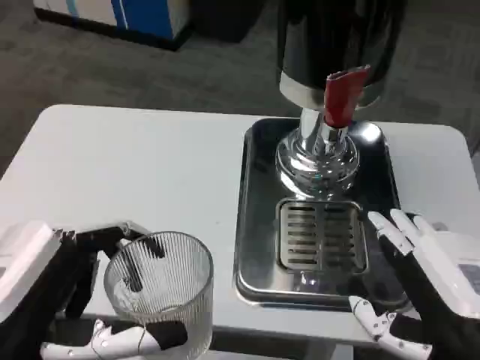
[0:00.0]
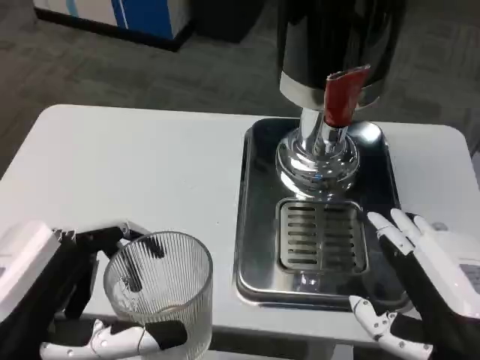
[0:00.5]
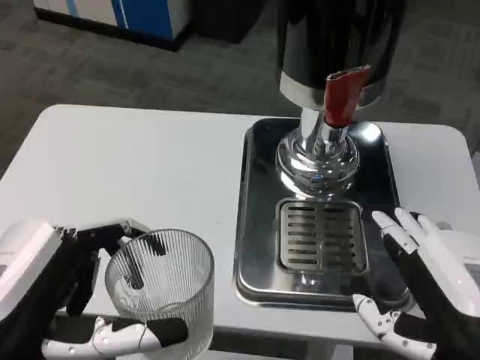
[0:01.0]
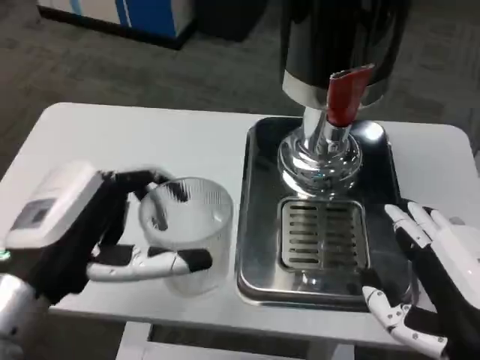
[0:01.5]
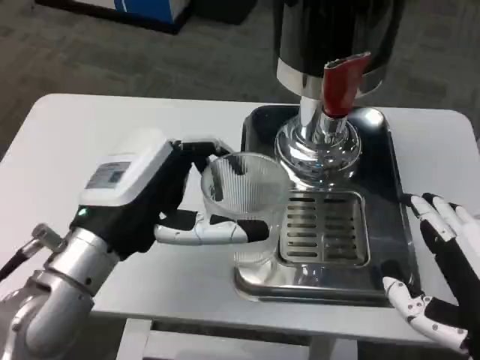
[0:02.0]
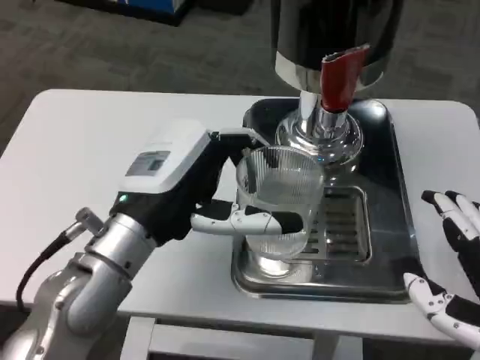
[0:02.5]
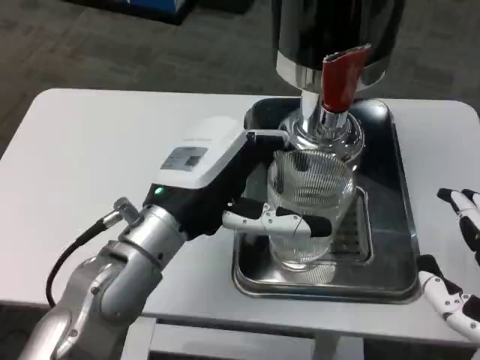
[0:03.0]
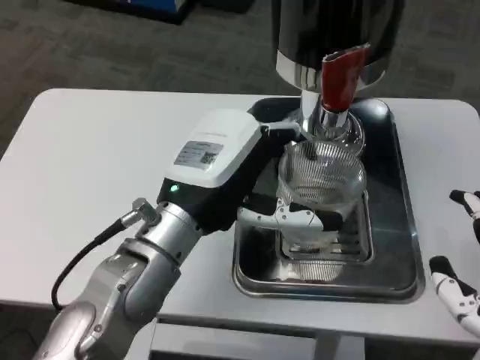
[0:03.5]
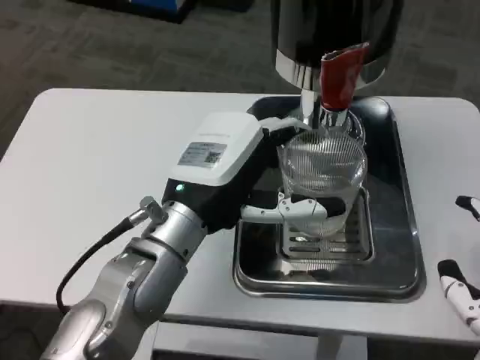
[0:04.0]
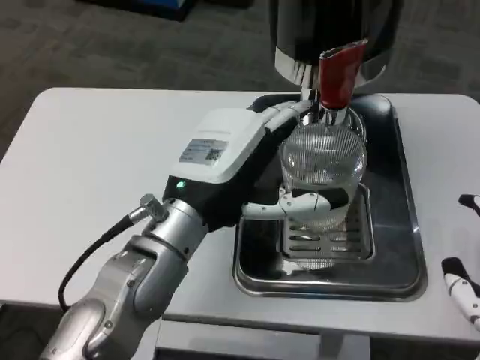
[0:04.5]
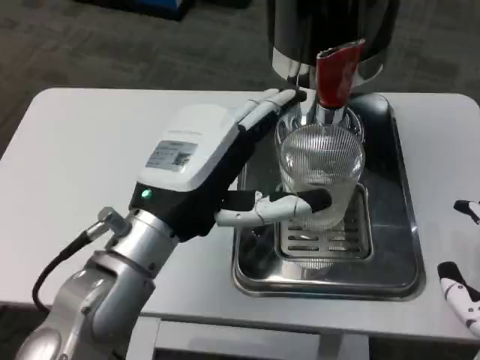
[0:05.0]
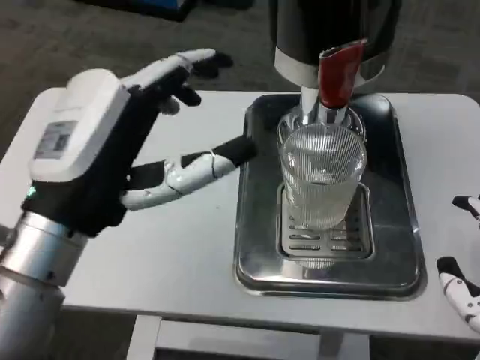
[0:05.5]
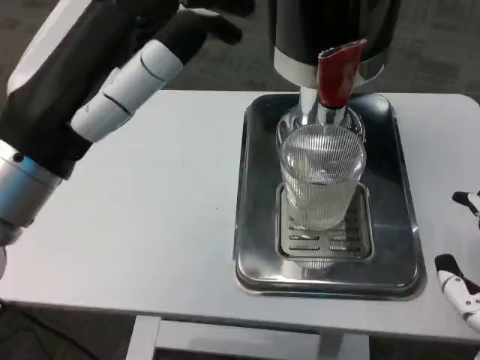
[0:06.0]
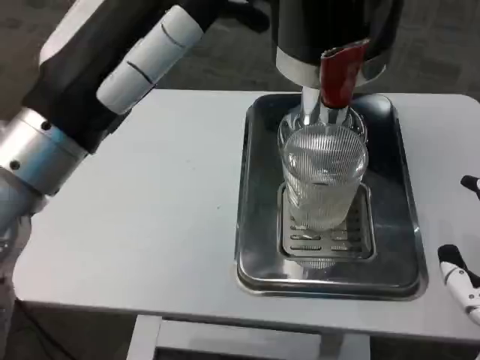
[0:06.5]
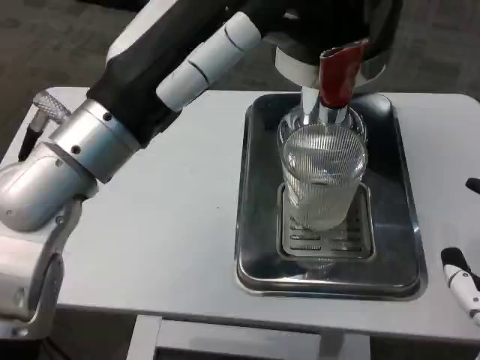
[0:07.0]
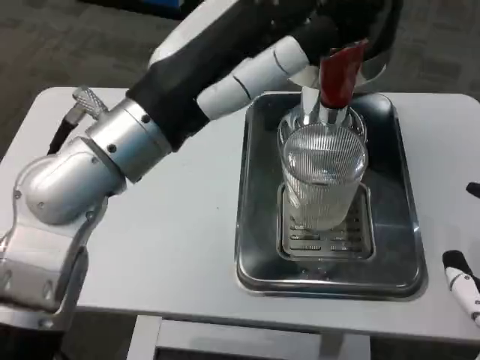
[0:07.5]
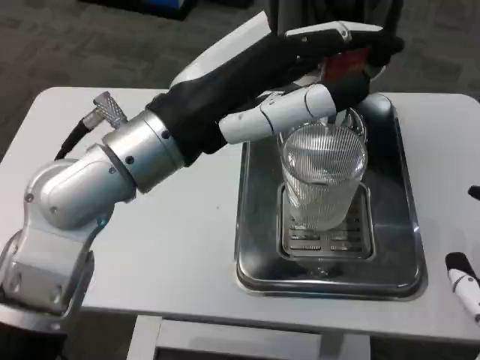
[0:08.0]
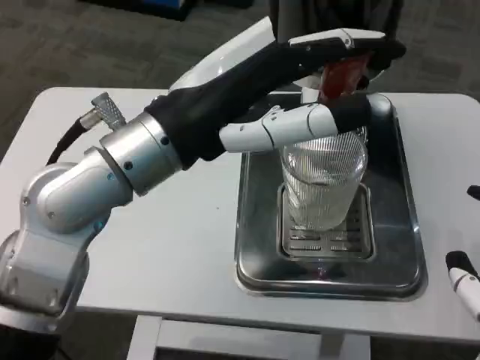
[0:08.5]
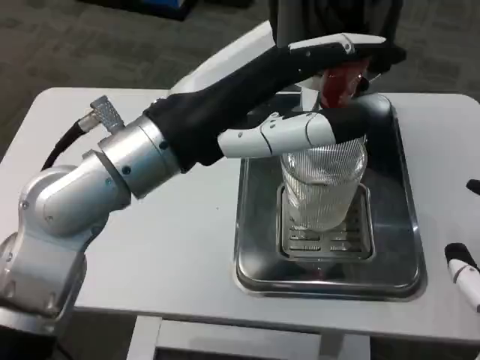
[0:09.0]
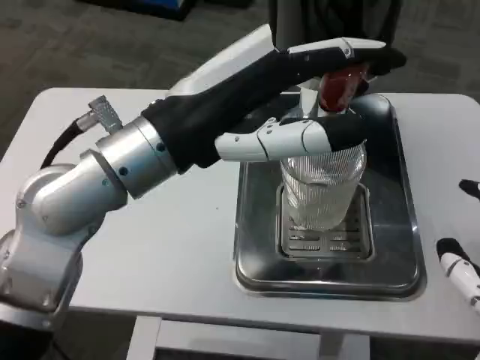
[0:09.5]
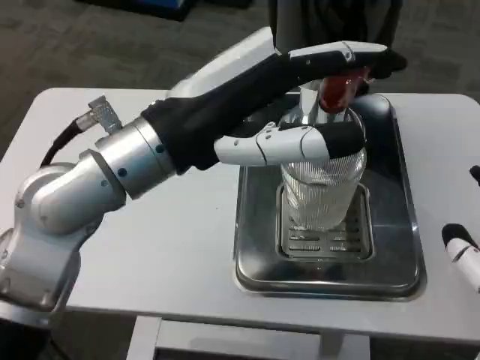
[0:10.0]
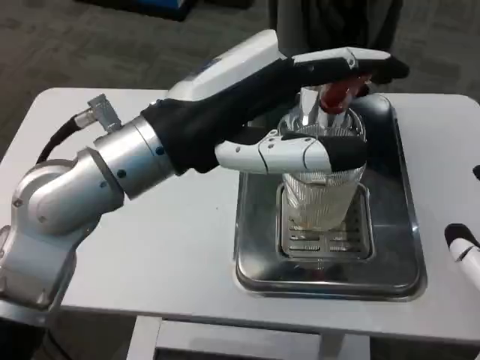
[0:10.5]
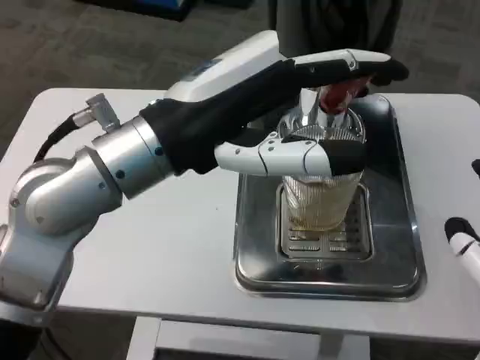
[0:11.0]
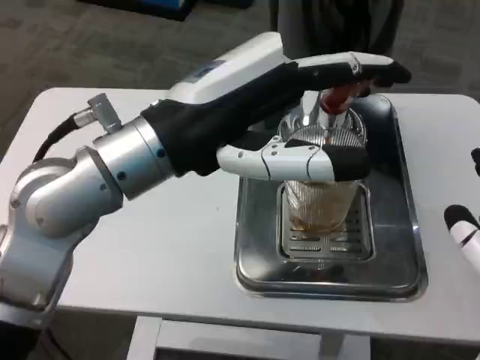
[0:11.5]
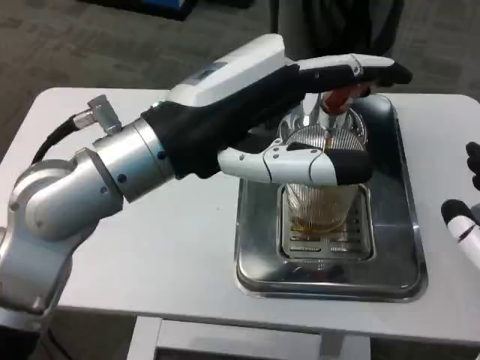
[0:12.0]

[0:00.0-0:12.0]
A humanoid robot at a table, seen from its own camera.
Task of the whole recording: Grasp the cup under the faucet to collect the drink, then remove the cup.
0:00.0 to 0:02.0: The left hand is displaced forward and to the right by some 15 cm.
0:02.0 to 0:04.0: The left hand heads to the right, covering some 5 cm.
0:04.0 to 0:06.0: The left hand heads upward, to the left and backward, covering roughly 15 cm.
0:06.0 to 0:08.0: The left hand is displaced to the right and forward by approximately 10 cm.

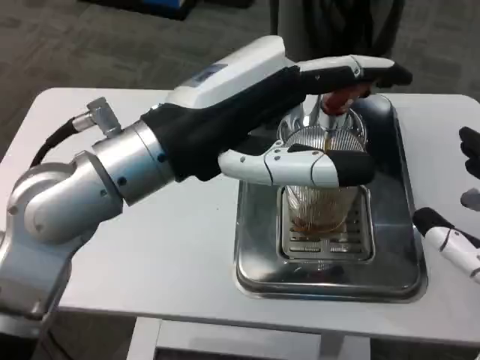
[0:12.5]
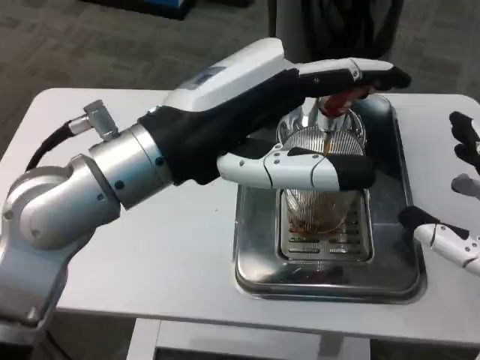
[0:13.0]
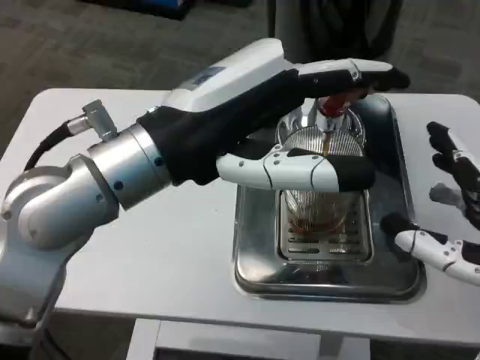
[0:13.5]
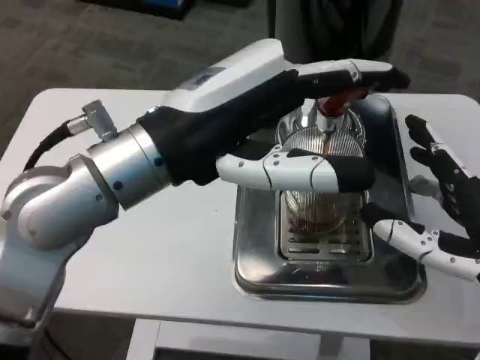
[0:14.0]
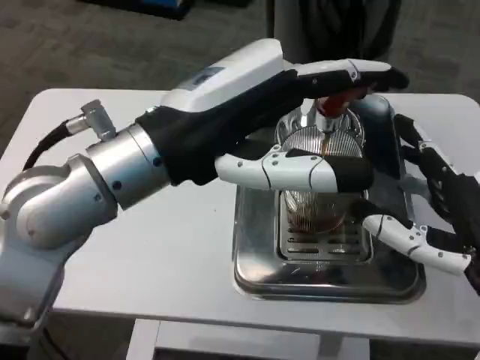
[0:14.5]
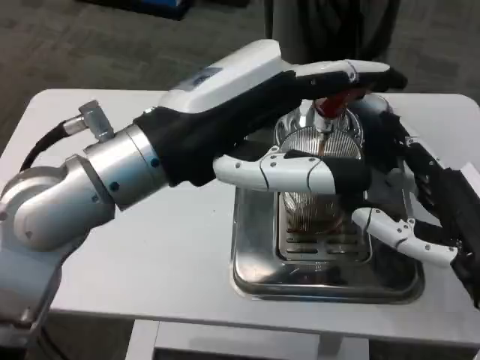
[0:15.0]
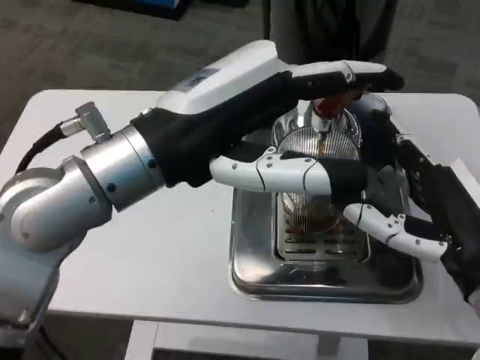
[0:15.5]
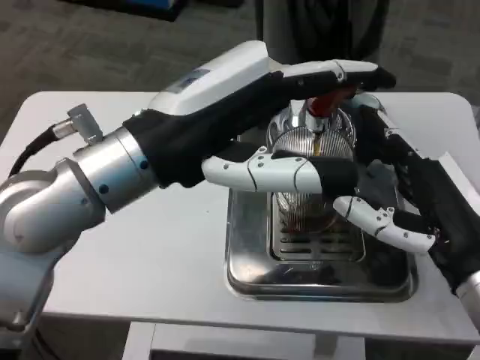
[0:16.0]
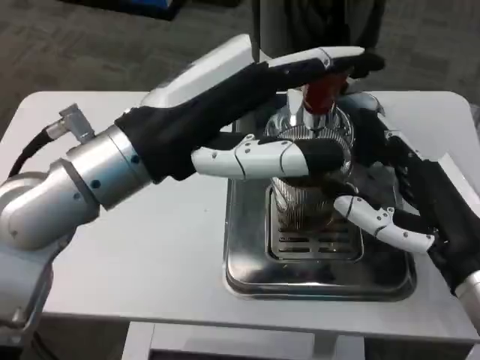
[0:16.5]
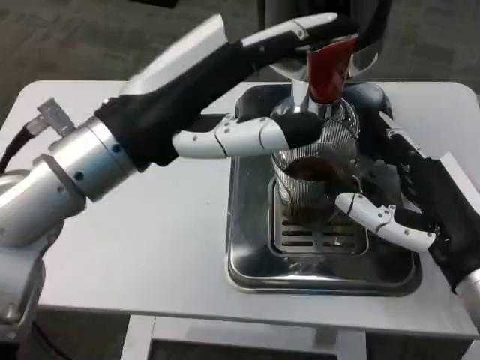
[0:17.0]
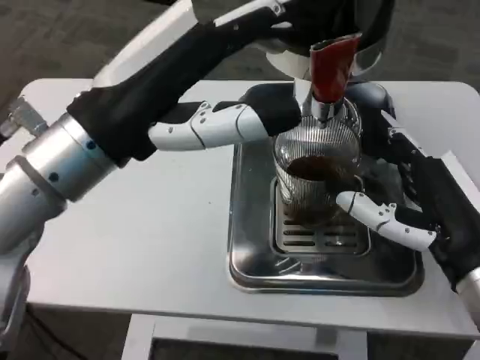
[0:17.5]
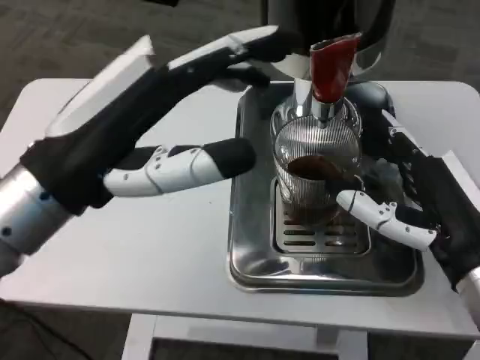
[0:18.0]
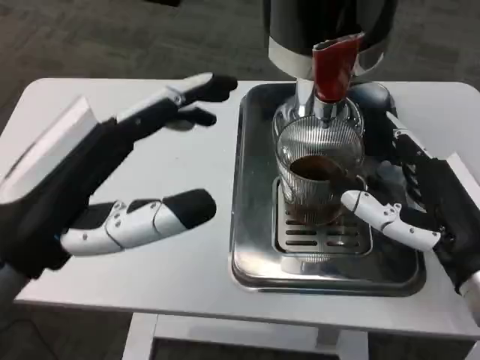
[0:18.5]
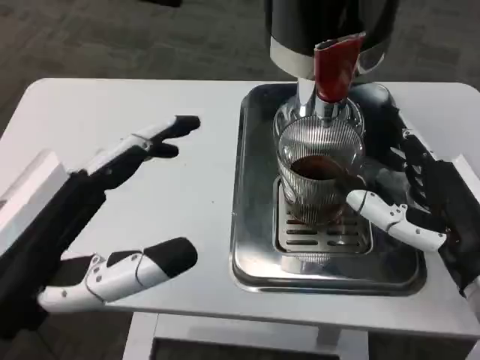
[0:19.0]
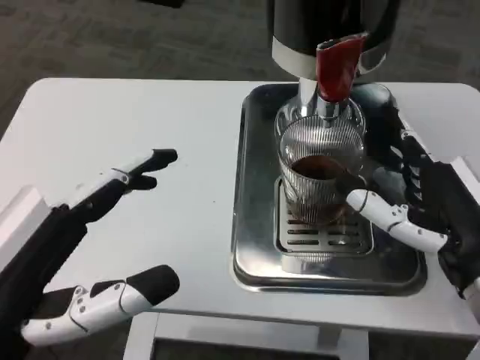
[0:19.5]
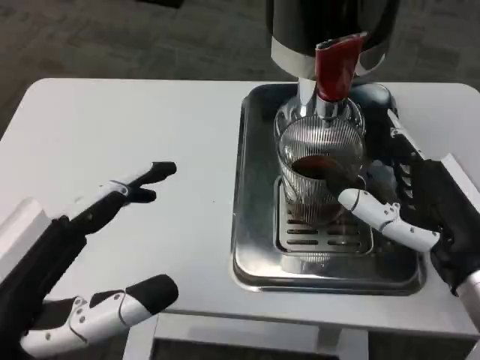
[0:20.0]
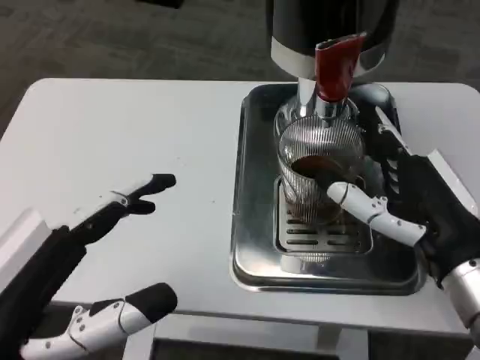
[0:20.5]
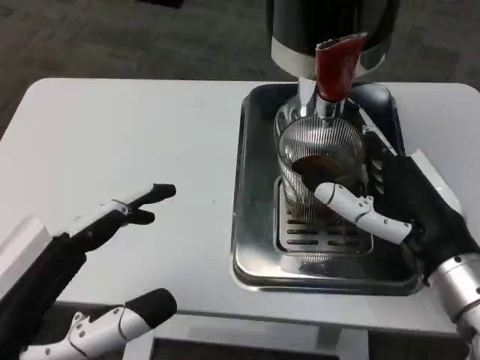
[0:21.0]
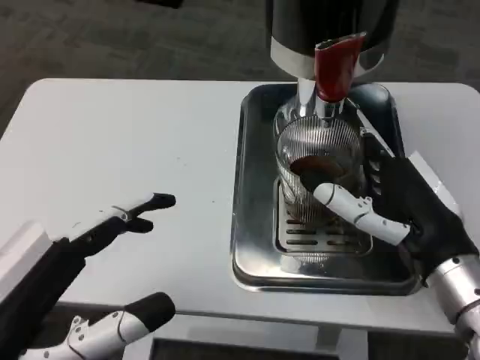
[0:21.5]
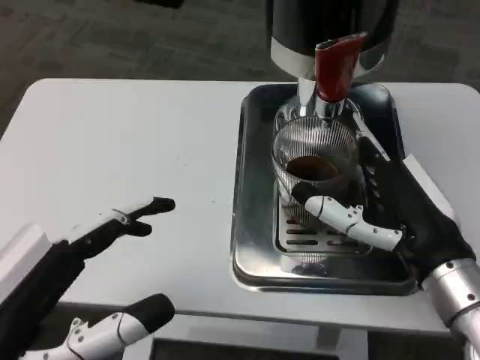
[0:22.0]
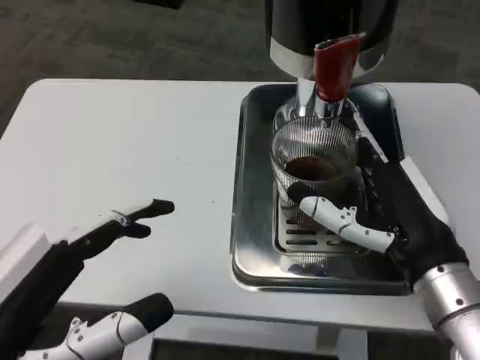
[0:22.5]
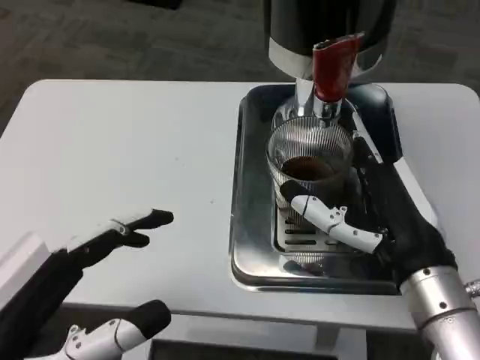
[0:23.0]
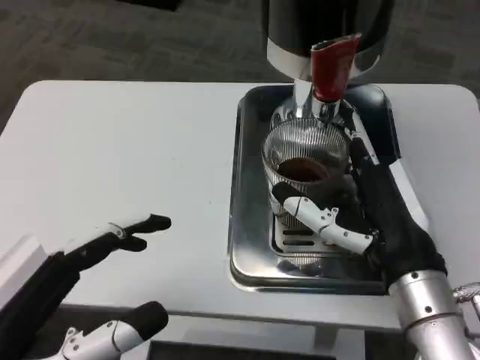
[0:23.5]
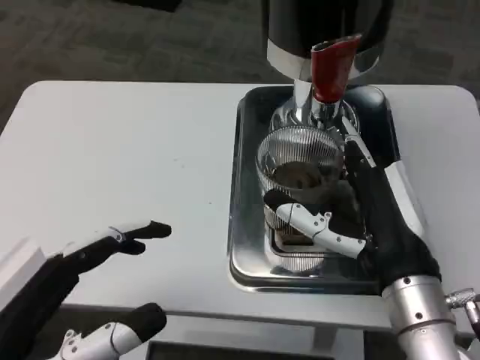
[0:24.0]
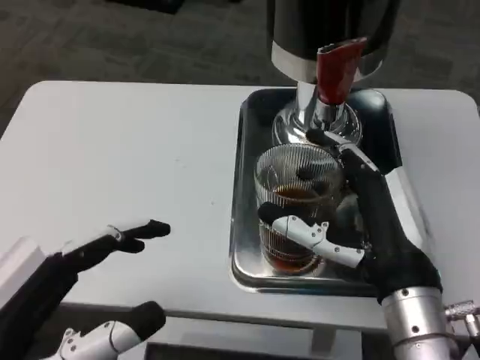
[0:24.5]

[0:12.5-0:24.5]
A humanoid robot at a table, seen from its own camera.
Task of the whole recording: Grasp the cup under the faucet to collect the drink, then remove the cup.
0:16.5 to 0:18.5: The left hand shifts approximately 10 cm backward, to the left and downward.
0:18.5 to 0:20.5: The left hand moves backward, some 5 cm.
0:20.5 to 0:22.5: The hands move only a little.

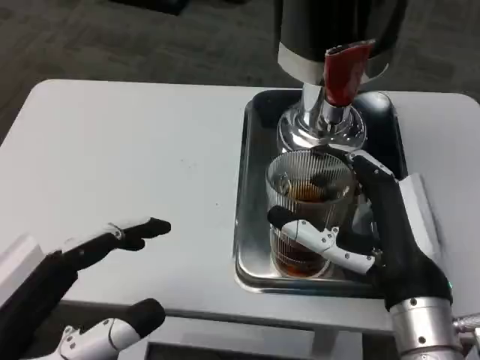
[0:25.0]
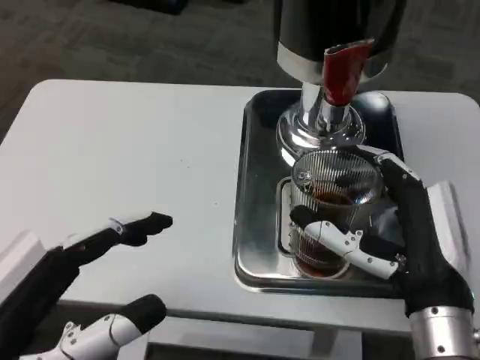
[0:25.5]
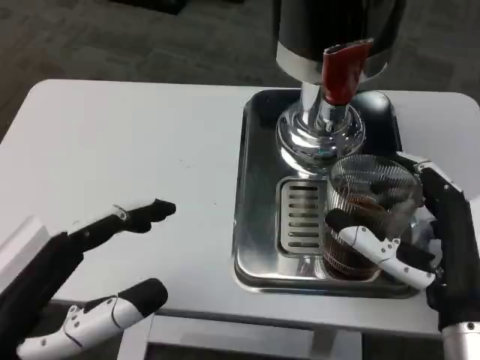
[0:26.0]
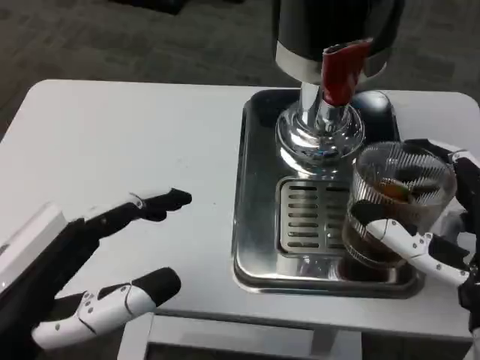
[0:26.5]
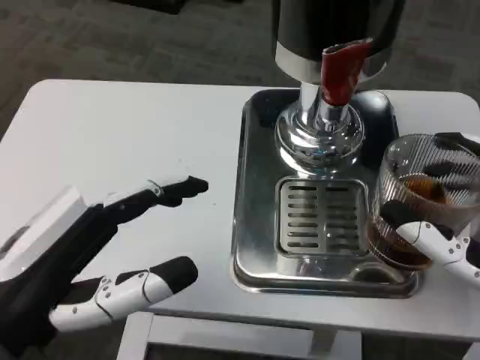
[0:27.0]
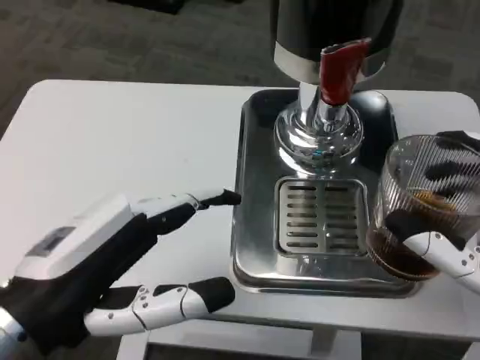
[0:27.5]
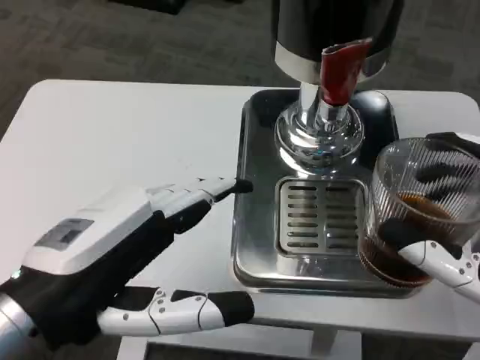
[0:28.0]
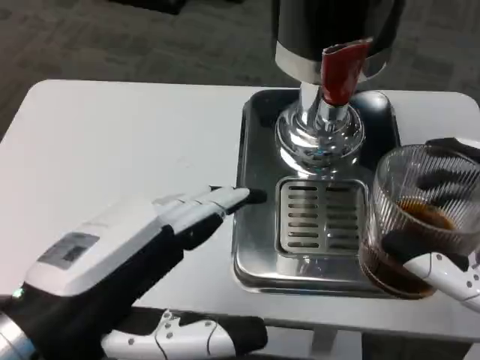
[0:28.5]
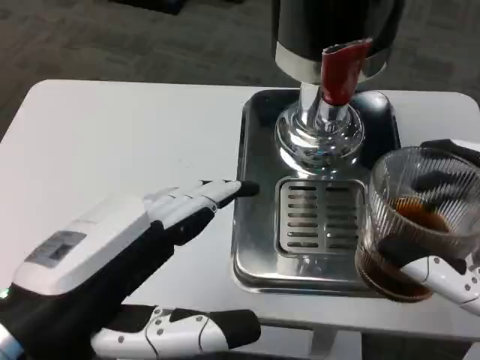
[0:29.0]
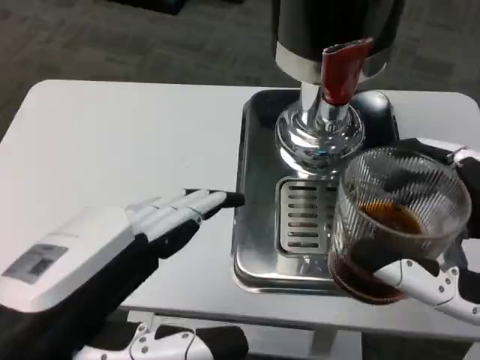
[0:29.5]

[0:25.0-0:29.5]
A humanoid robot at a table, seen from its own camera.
Task of the whole recording: Grasp the cup under the faucet to collect the drink, then remove the cup.
0:25.0 to 0:27.0: The right hand is displaced to the right and backward by some 10 cm.
0:27.0 to 0:29.5: The left hand shifts by some 5 cm.
